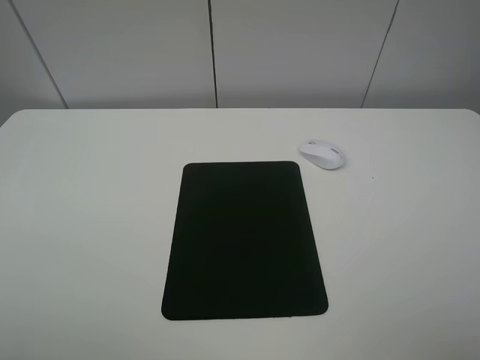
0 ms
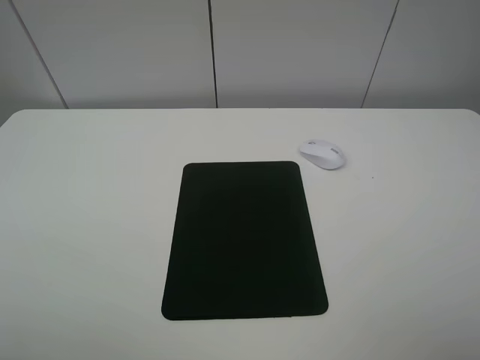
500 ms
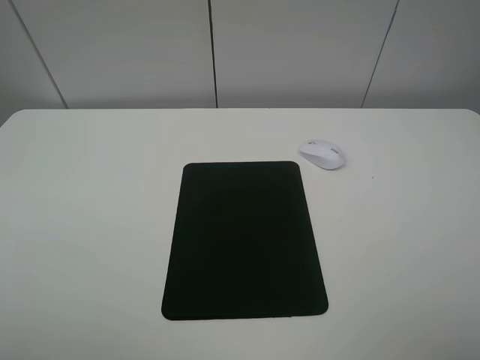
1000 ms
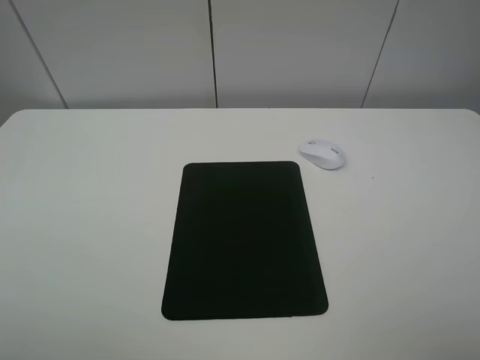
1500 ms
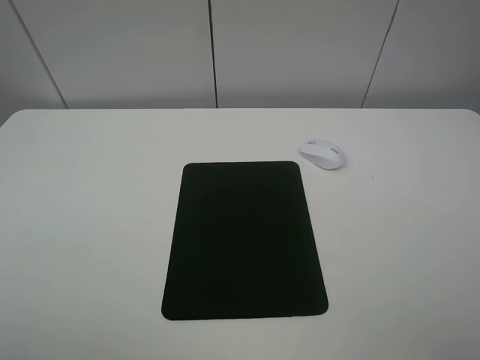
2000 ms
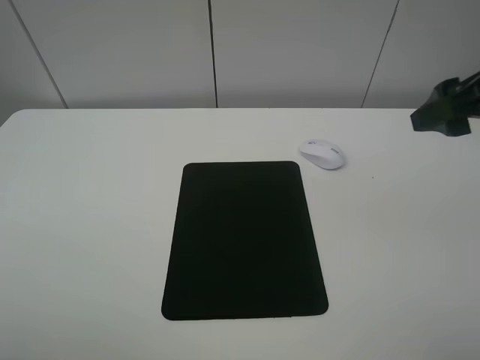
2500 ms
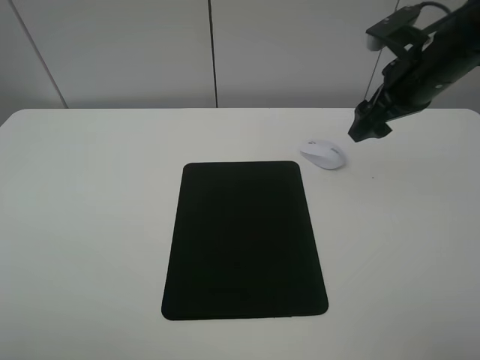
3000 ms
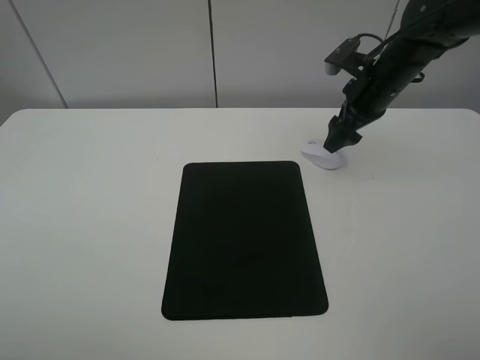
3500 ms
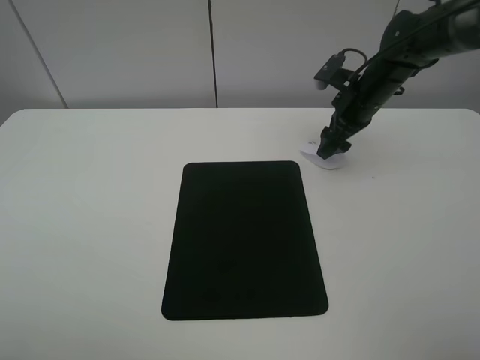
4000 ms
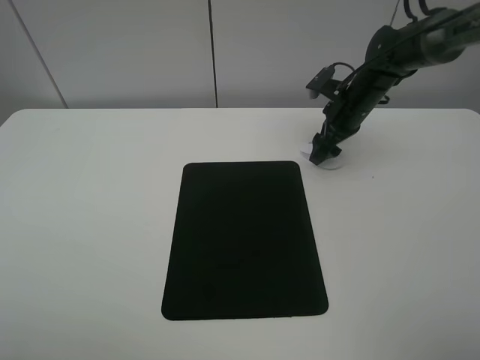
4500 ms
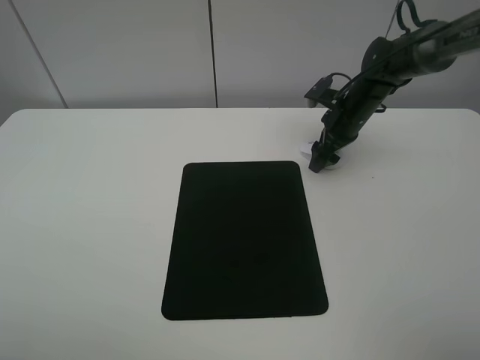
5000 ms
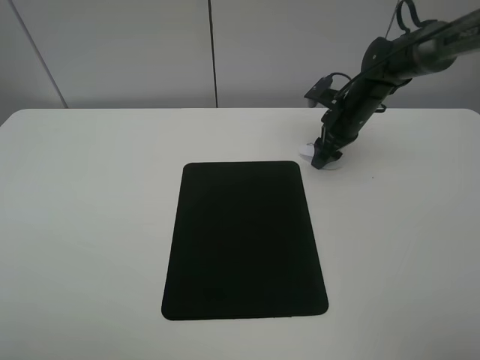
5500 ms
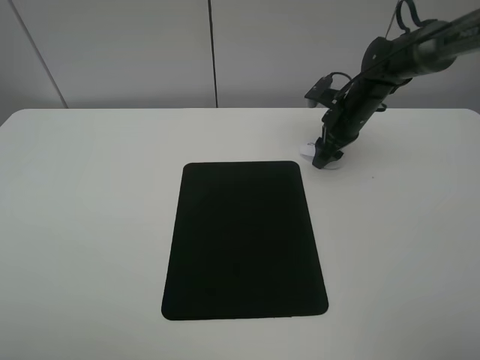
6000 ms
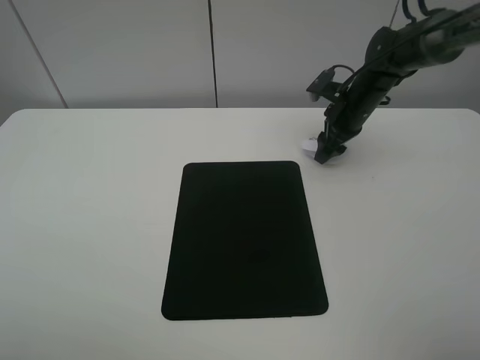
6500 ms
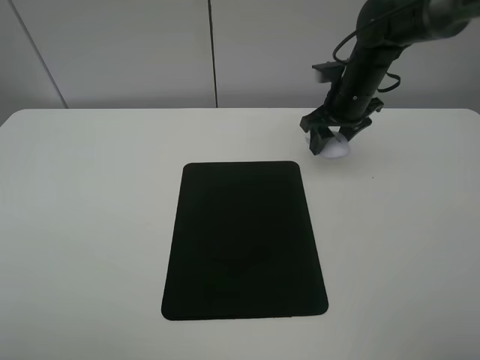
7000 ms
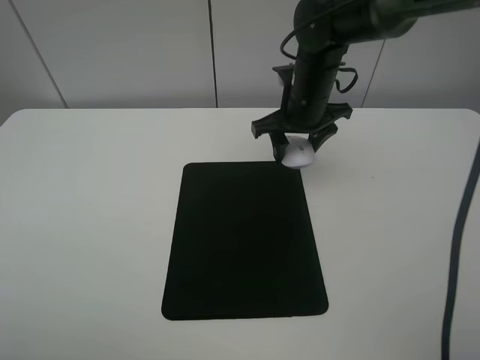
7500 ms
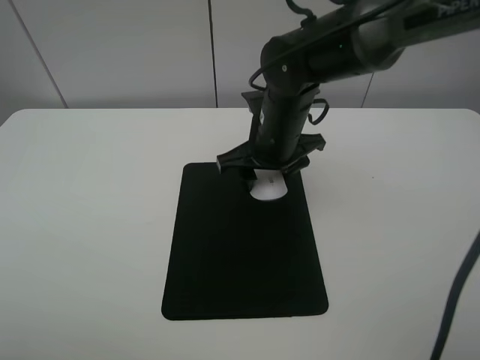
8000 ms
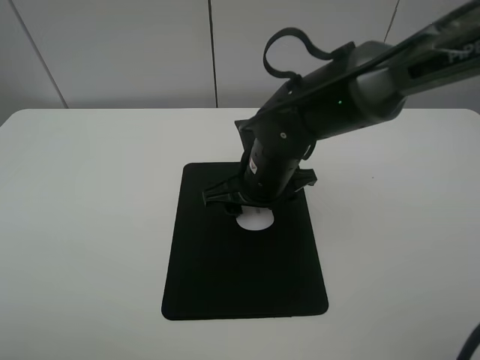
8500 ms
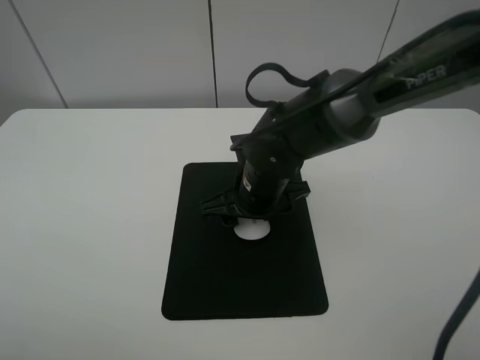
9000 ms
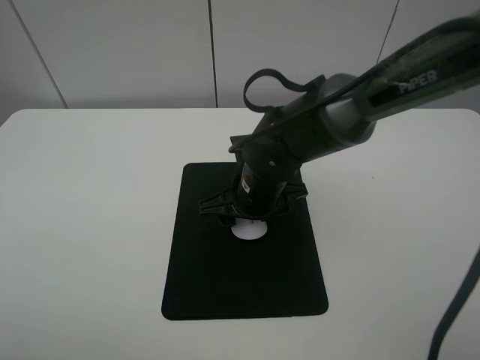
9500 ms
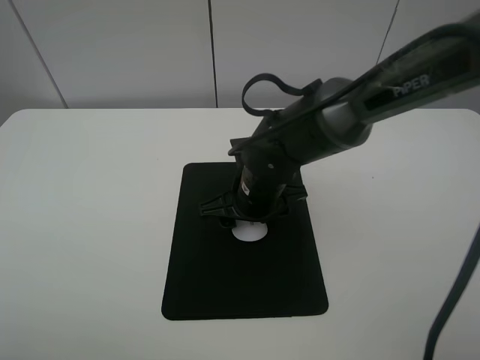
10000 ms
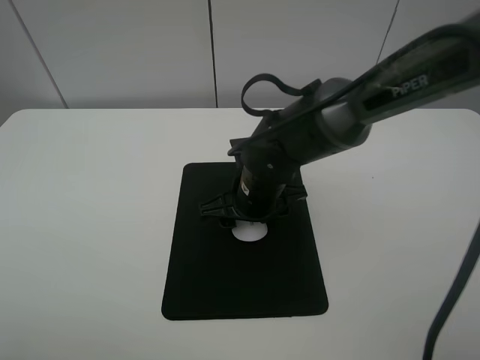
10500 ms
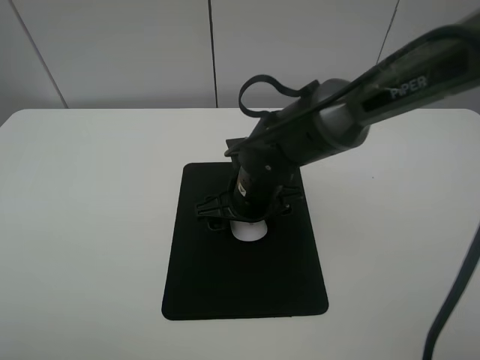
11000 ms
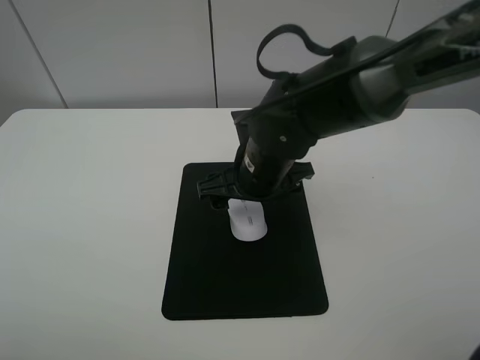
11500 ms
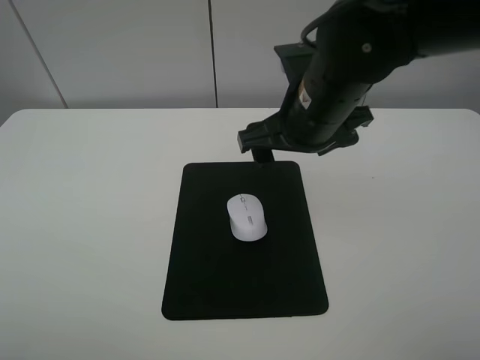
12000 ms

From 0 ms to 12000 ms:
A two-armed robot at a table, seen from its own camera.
Step, from 0 ms to 6000 ms: Grasp the mouse with the right gripper.
Step, from 6500 ms to 10500 ms: Place the mouse on the mouse mat with the right gripper.
From 2000 ms to 4000 ms: The right gripper heads forward and downward, covering approximately 40 cm, and opens its fingers.
From 4000 ms to 6000 ms: The right gripper closes.
From 6000 ms to 8000 ms: The right gripper moves to the left and backward, approximately 20 cm.
From 8000 ms to 10000 ms: The right gripper moves downward, some 5 cm.
From 10000 ms to 12000 ms: The right gripper shifts roughly 15 cm upward and to the right, and opens its fingers.

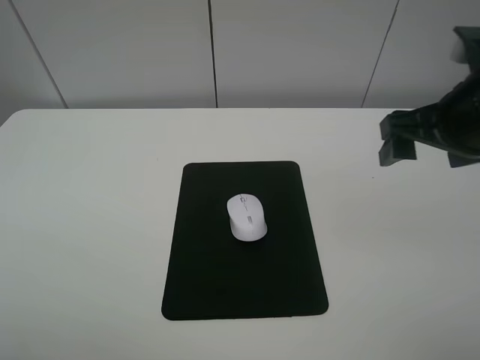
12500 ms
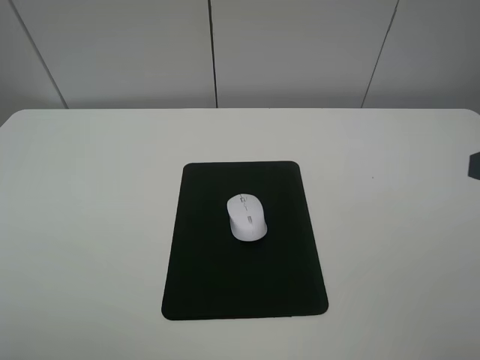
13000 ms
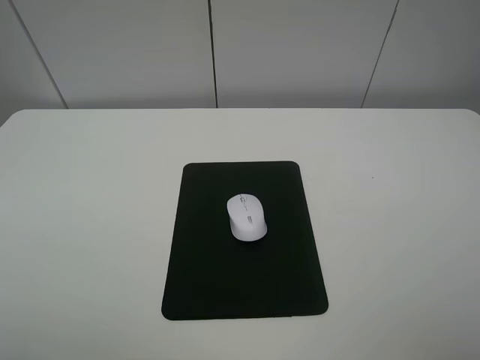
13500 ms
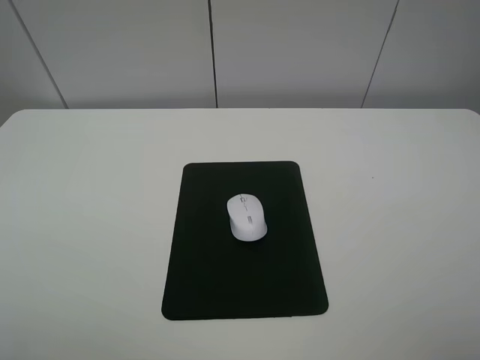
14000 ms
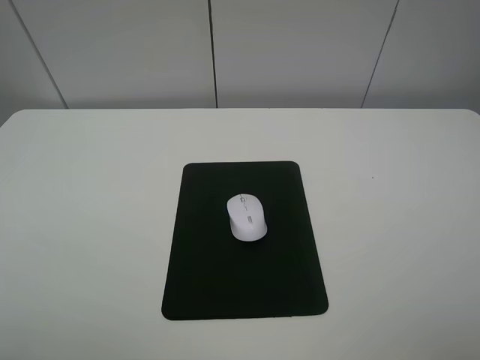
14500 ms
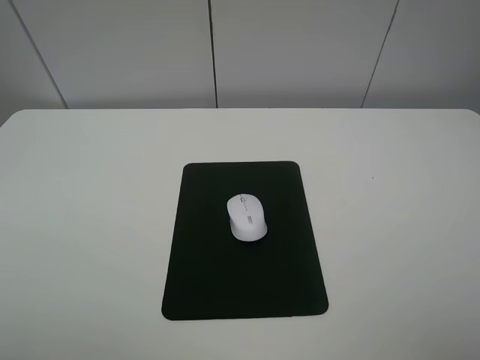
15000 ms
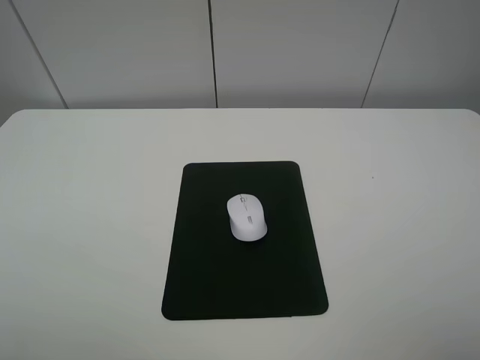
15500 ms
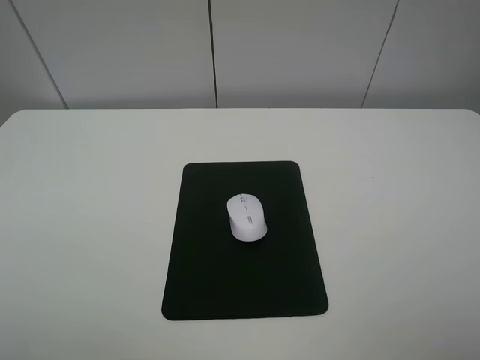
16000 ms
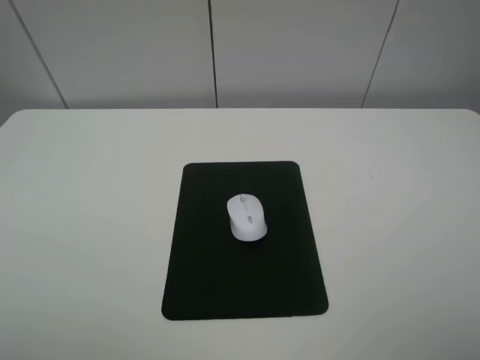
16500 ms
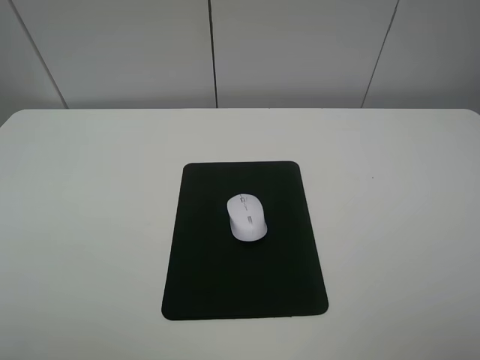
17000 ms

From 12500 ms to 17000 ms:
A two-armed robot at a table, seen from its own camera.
From 12500 ms to 14500 ms: The right gripper heads backward, covering approximately 25 cm.

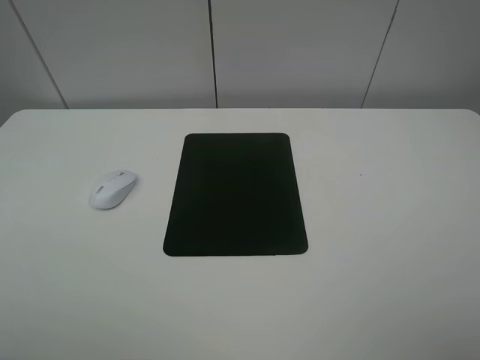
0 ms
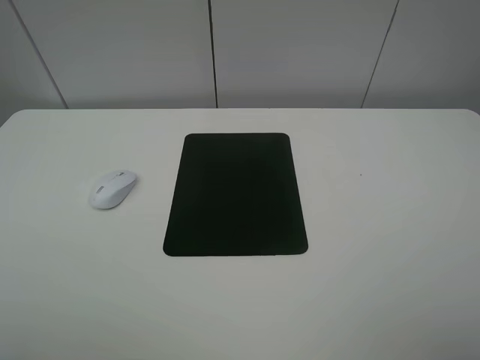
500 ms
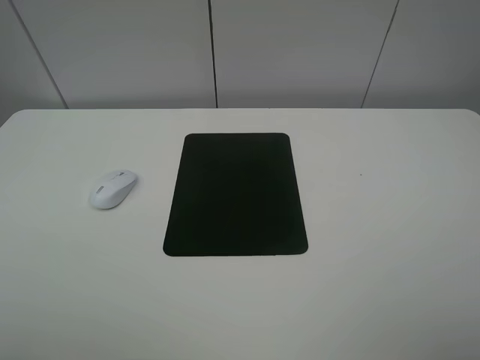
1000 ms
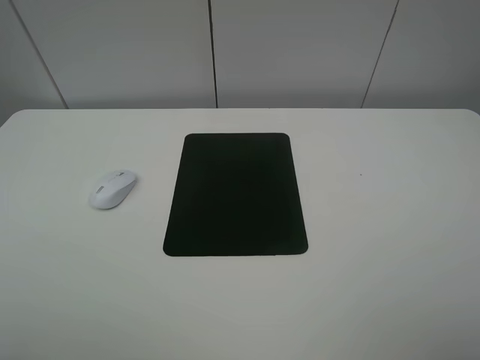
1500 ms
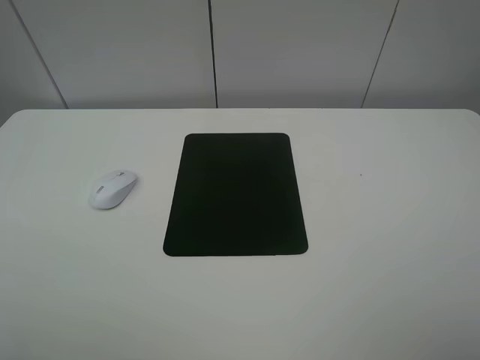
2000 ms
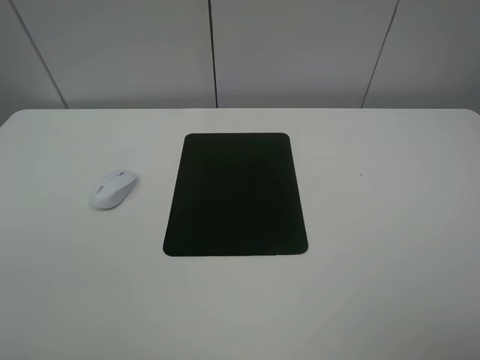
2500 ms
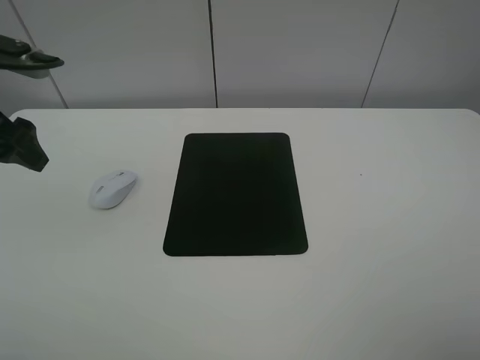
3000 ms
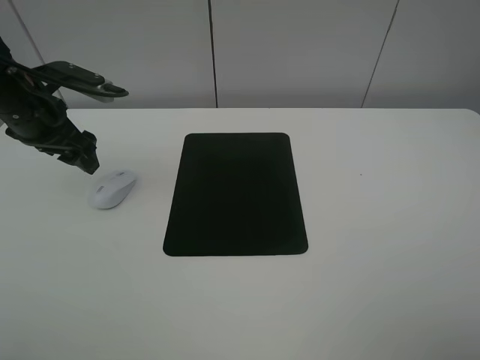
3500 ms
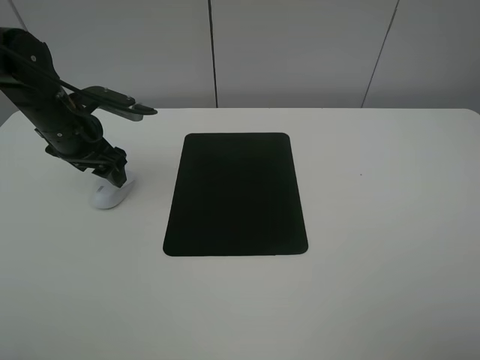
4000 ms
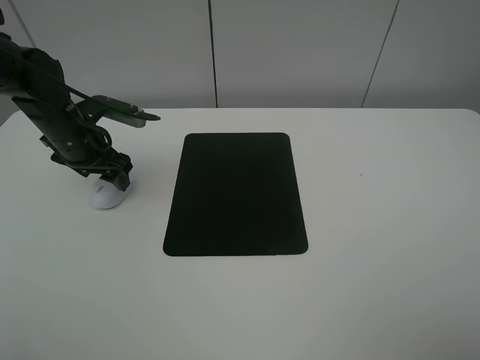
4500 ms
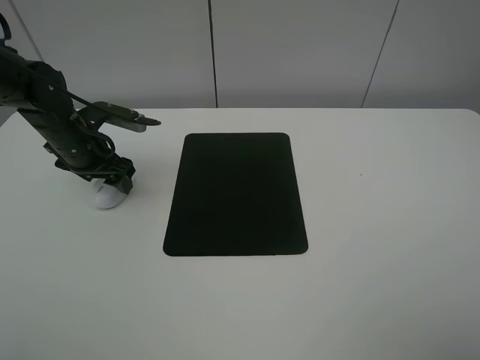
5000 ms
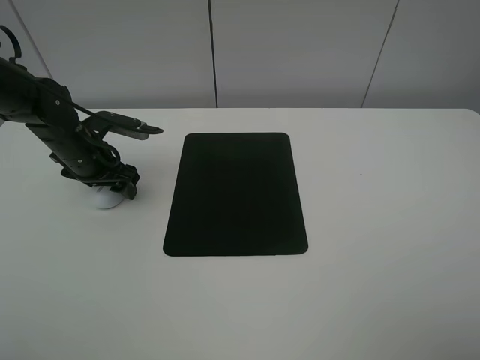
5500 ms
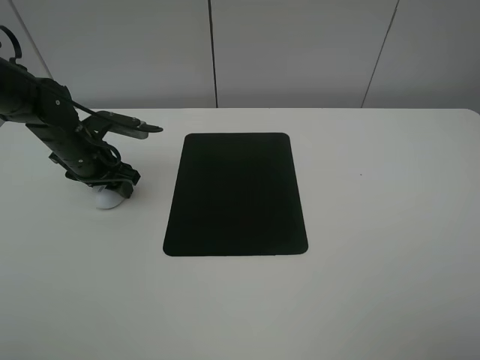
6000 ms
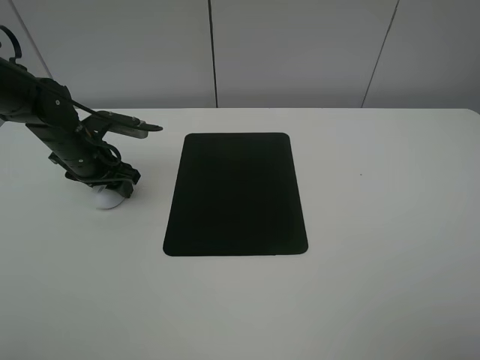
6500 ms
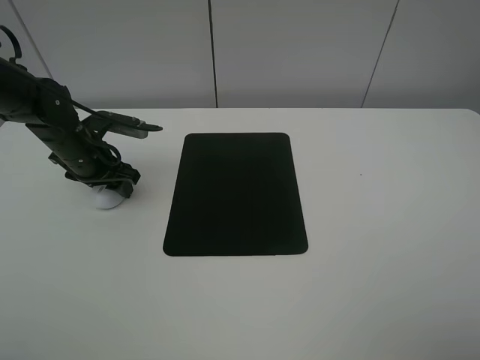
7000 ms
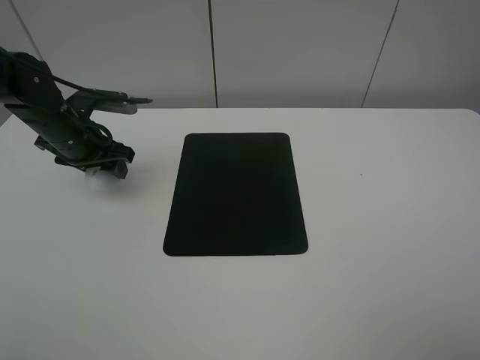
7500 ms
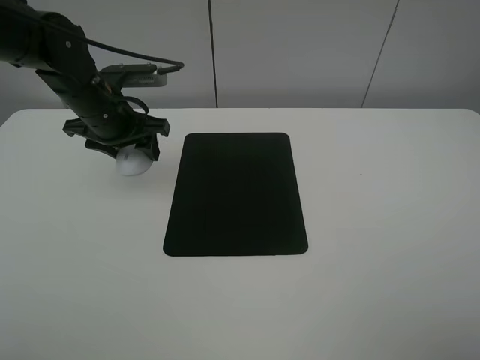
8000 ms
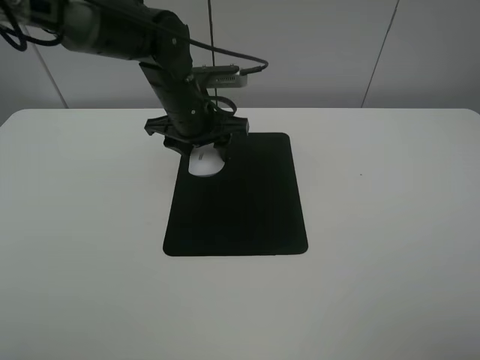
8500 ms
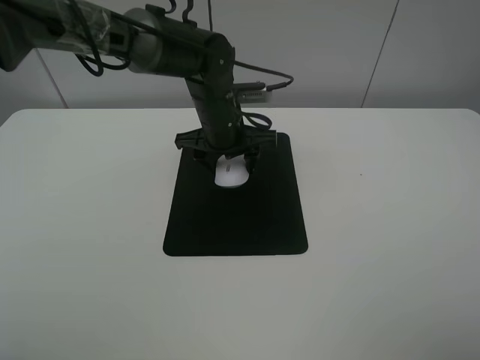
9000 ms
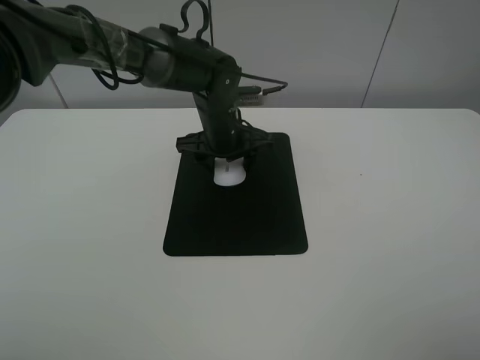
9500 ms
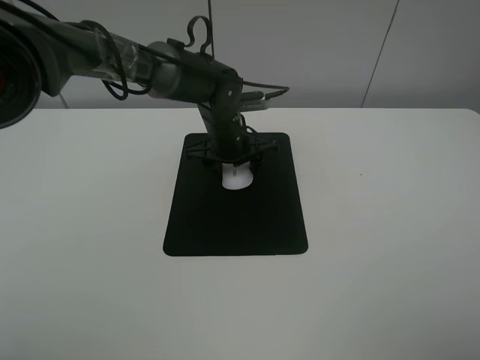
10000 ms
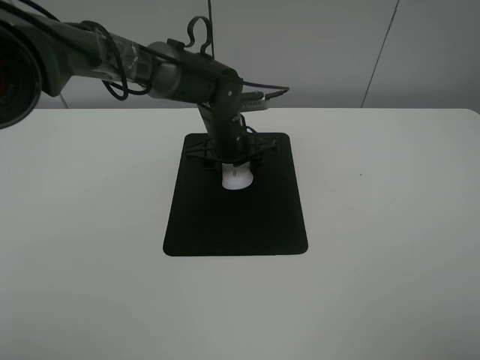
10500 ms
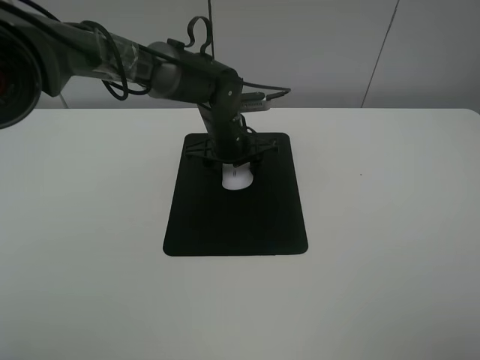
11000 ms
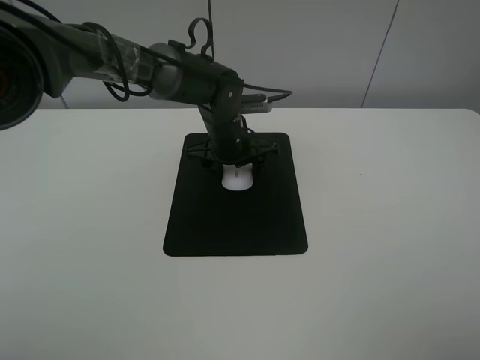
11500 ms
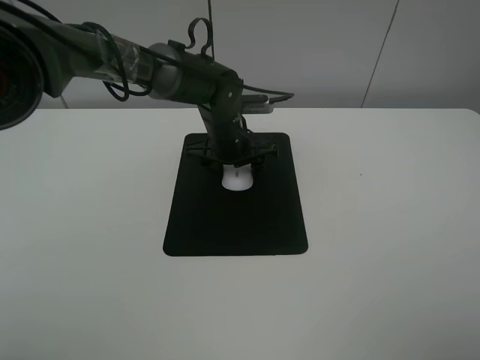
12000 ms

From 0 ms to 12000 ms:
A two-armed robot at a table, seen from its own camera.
Step, from 0 ms to 6500 ms: Grasp the mouse with the left gripper.
Step, from 7000 ms to 10500 ms: Place the mouse on the mouse mat with the left gripper.
From 0 ms to 2000 ms: The two grippers keep their place.
From 2000 ms to 4000 ms: The left gripper shifts roughly 35 cm forward and downward.
From 4000 ms to 6000 ms: The left gripper goes approximately 5 cm downward, and closes its fingers.
From 6000 ms to 8000 ms: The left gripper heads upward and to the right, covering roughly 10 cm.
From 8000 ms to 10000 ms: The left gripper moves to the right and downward, about 20 cm.
From 10000 ms to 12000 ms: The left gripper opens its fingers.
